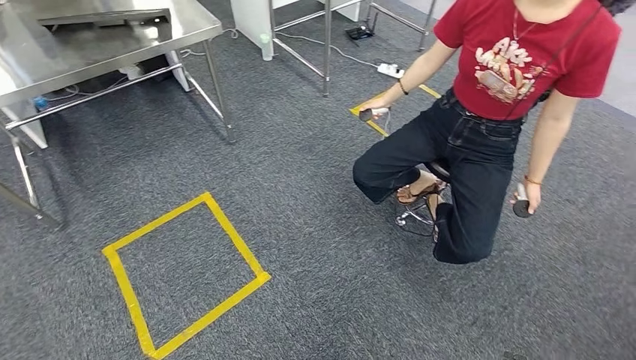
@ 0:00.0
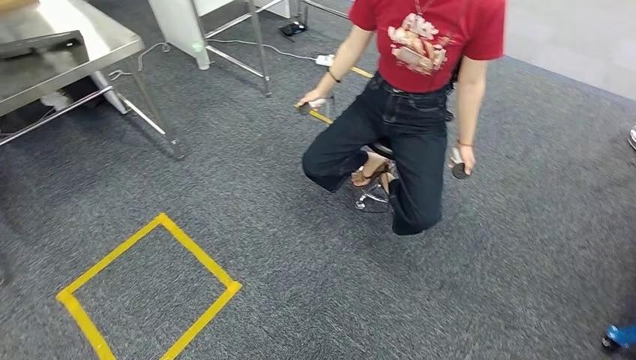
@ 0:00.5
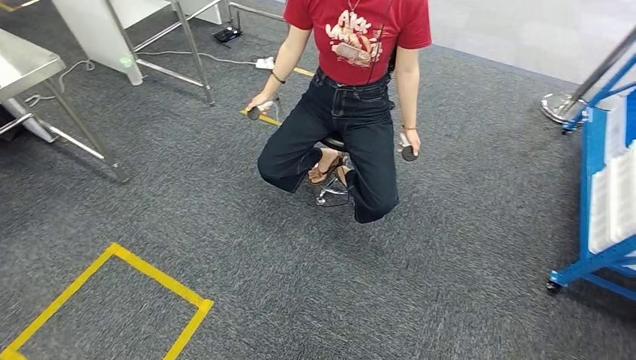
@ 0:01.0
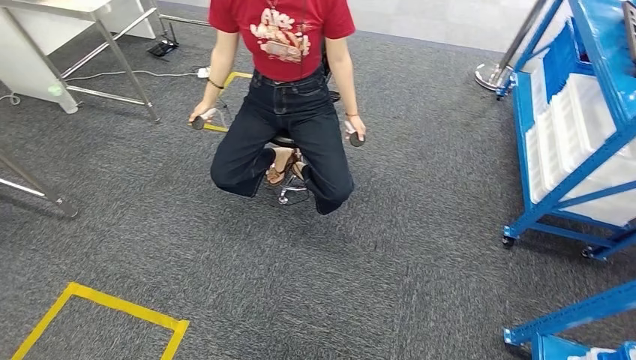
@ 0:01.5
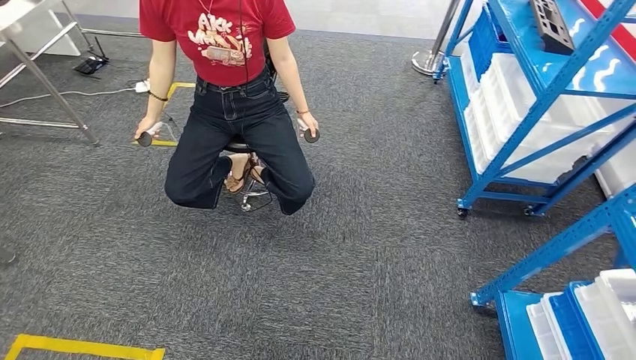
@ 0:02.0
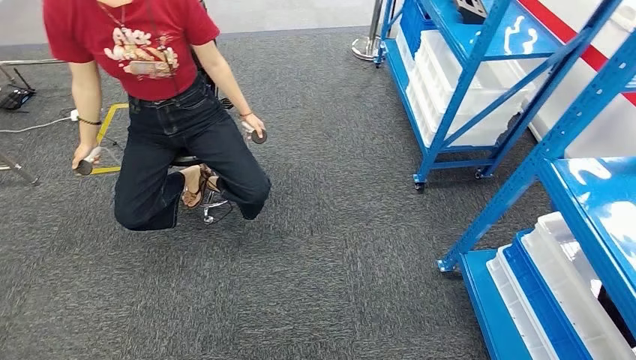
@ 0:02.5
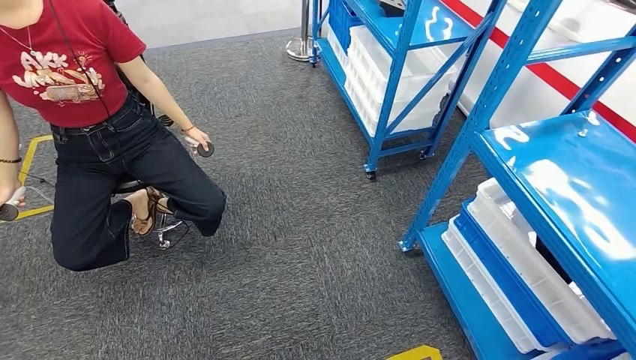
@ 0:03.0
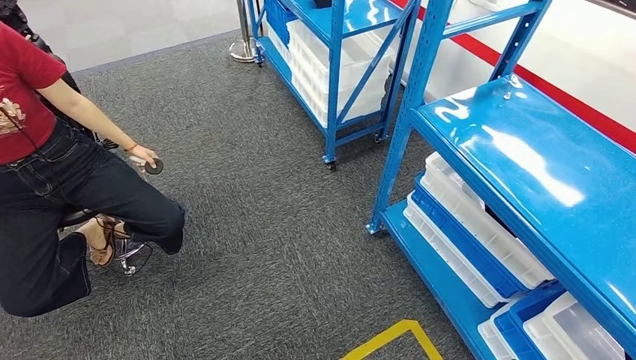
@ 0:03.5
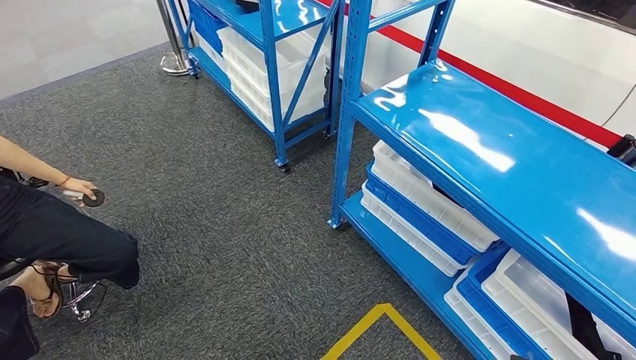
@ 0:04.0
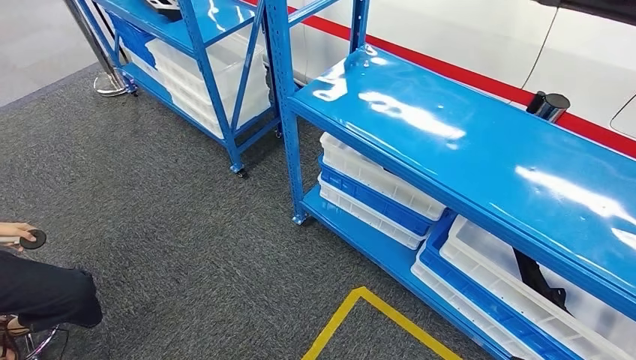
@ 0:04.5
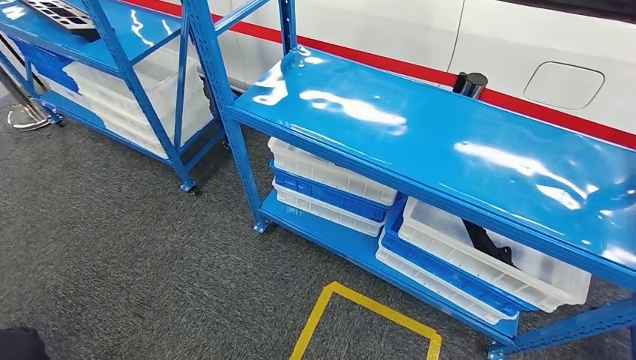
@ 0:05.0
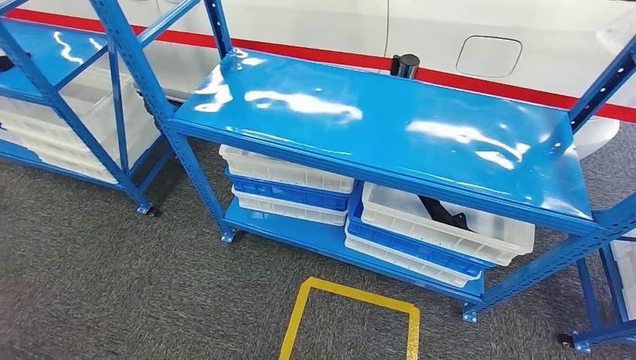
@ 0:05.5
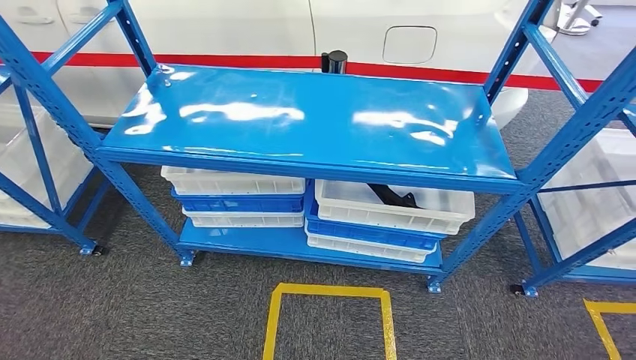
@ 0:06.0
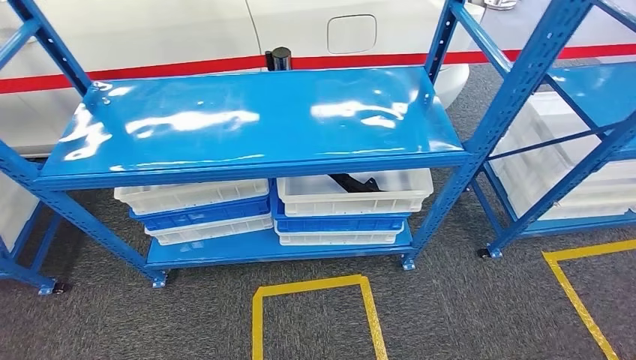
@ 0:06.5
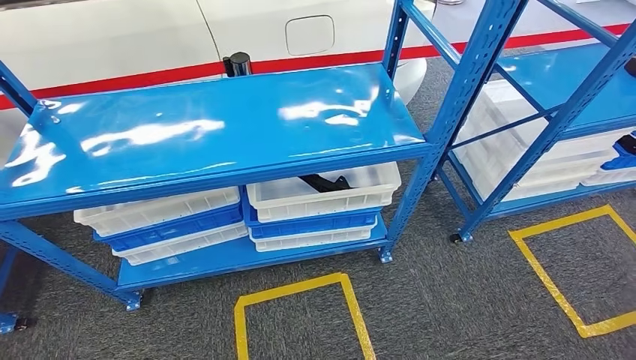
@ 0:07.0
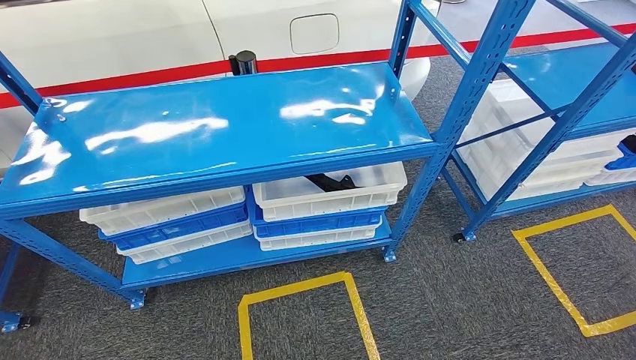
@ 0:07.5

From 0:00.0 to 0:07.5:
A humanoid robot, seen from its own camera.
Step, from 0:00.0 to 0:07.5: Move to the initial position of the shelf.
